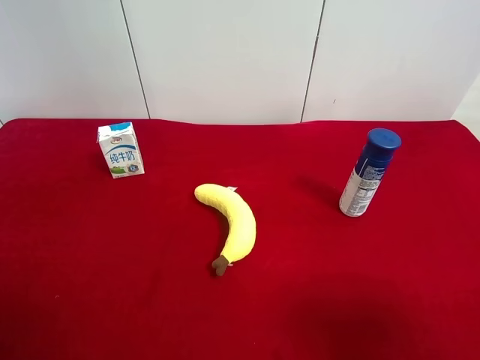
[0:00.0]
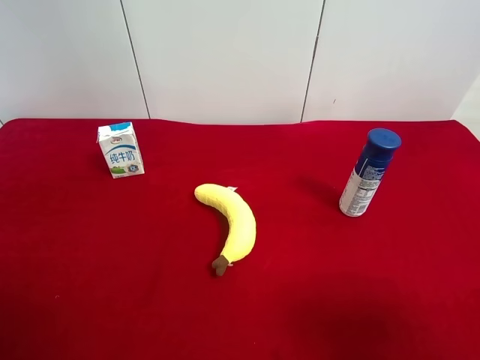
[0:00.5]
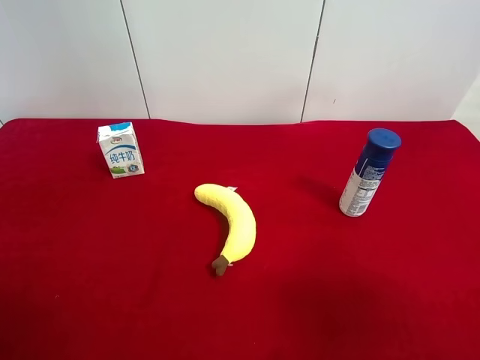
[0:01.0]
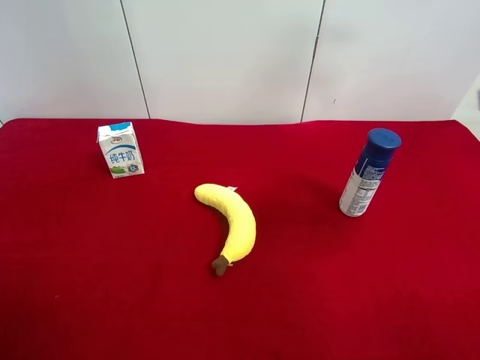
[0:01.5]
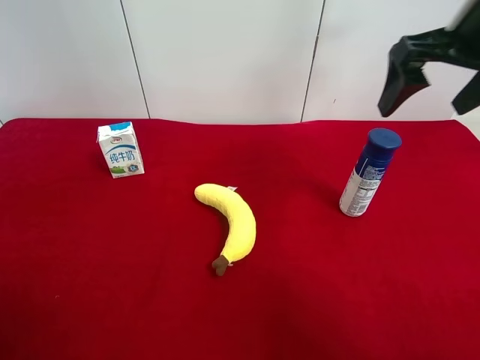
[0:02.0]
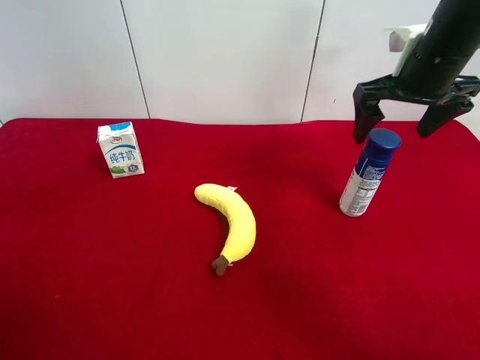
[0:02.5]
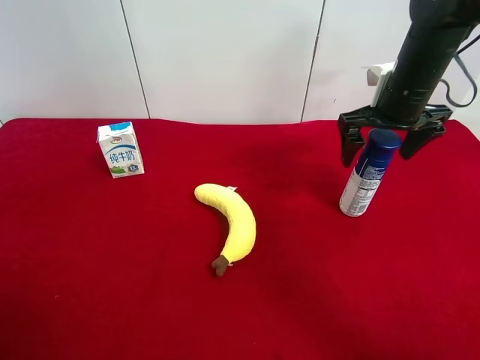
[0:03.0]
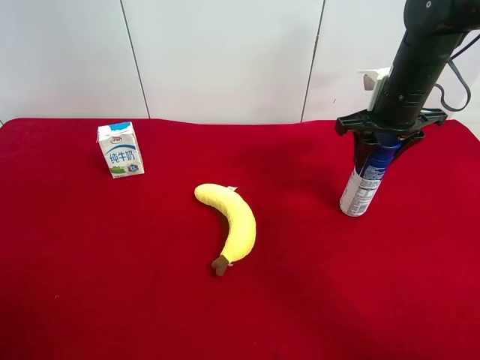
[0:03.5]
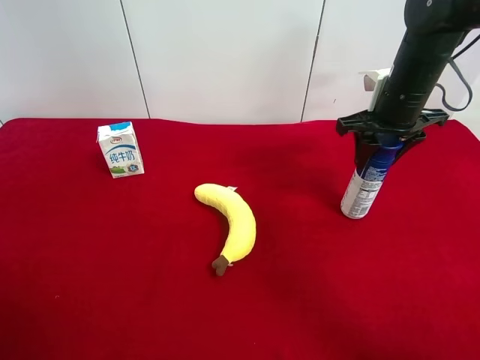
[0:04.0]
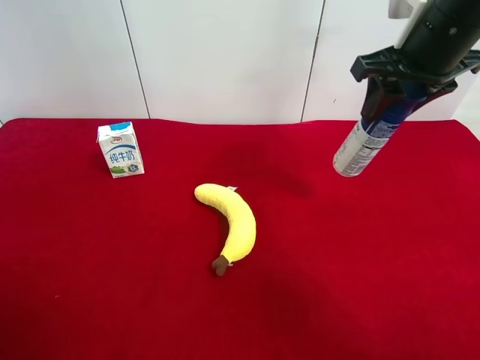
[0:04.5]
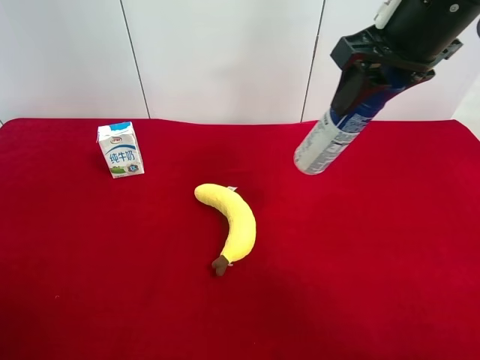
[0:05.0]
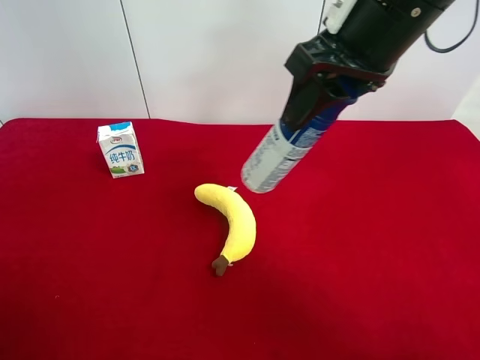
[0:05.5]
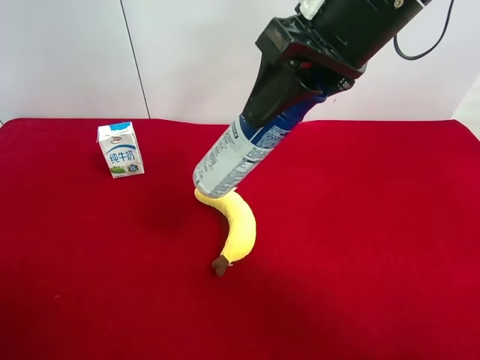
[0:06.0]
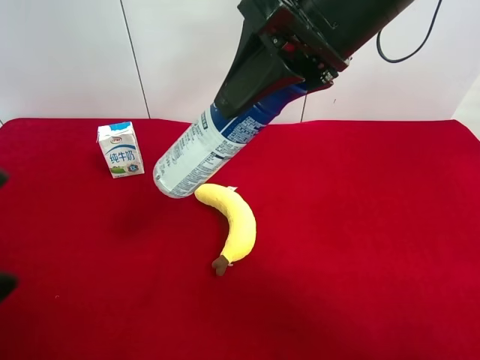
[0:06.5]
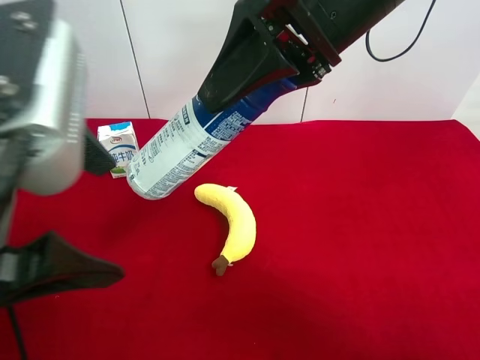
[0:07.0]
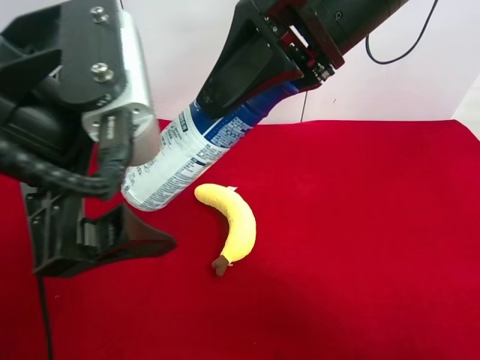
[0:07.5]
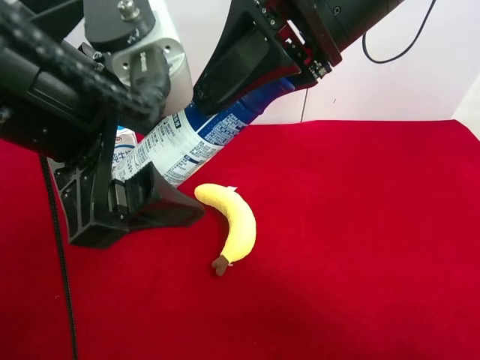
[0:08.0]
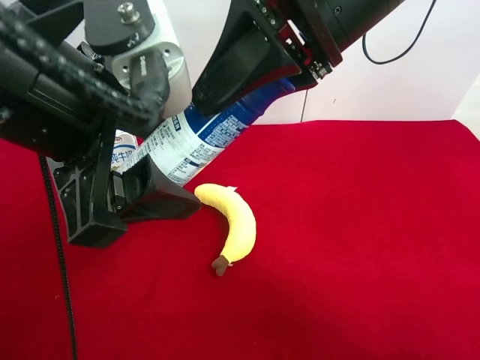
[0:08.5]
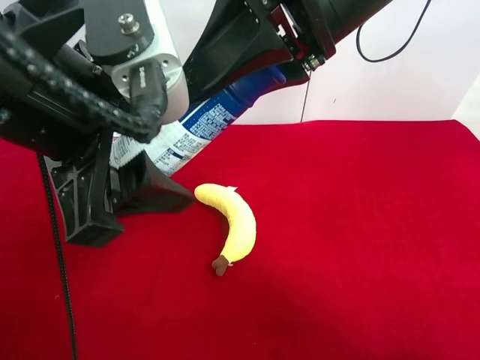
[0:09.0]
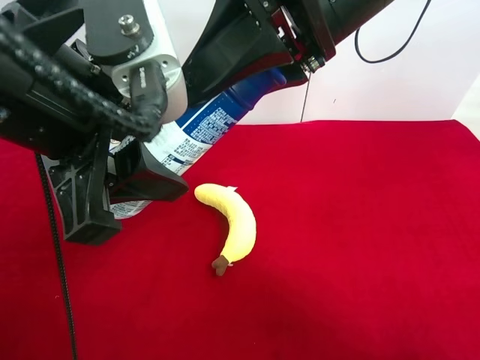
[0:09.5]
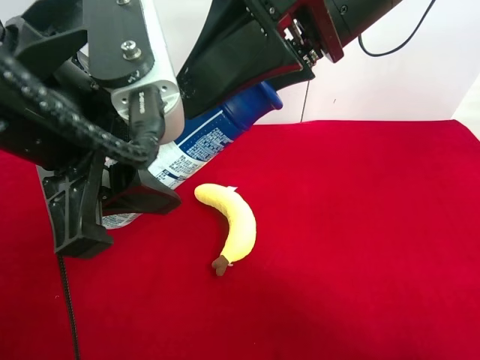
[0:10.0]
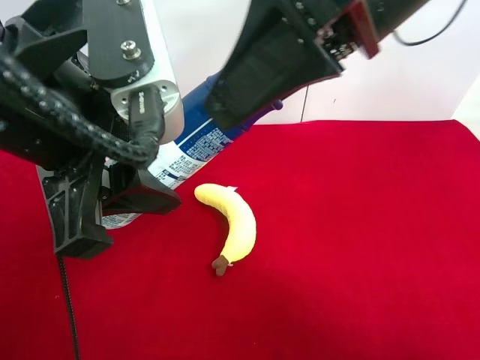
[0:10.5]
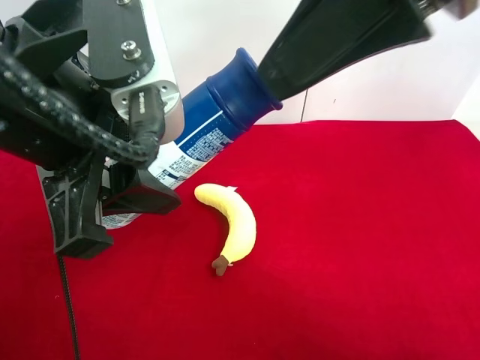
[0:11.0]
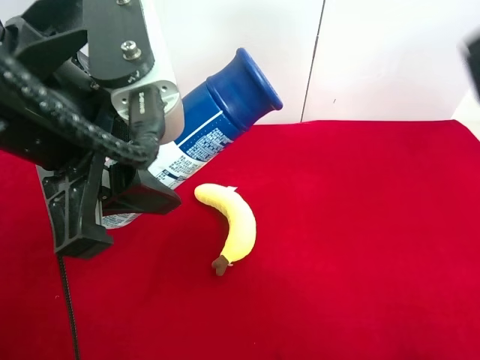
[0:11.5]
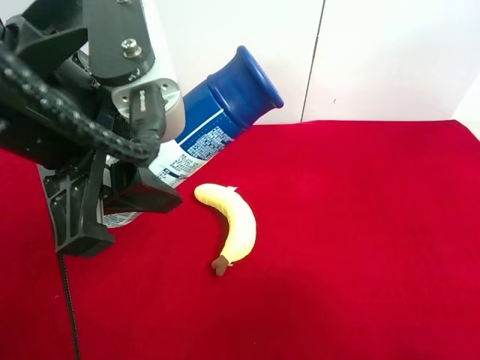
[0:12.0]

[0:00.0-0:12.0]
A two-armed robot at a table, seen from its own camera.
Task of the whole recording: use the right gripper to pick up the item and transfer it from the right gripper to the left gripper.
Step, 0:00.0 to 0:03.5: Use the right gripper to grab the yogurt on the right side of the table.
Step, 0:04.0 to 0:09.5: Pass the to the yogurt left gripper.
0:00.0 to 0:02.0: The right gripper heads forward, covering some 30 cm.
0:02.0 to 0:04.0: The right gripper is displaced downward and forward by about 10 cm, and closes its fingers.
0:04.0 to 0:06.0: The right gripper moves to the left, upward and backward, approximately 20 cm. The left gripper heads forward, covering about 5 cm.
0:06.0 to 0:08.0: The left gripper travels to the right and forward by some 20 cm, and closes up.
0:08.0 to 0:10.0: The left gripper closes its fingers. The right gripper opens.
0:10.0 to 0:12.0: The right gripper is displaced backward and to the right by some 30 cm.

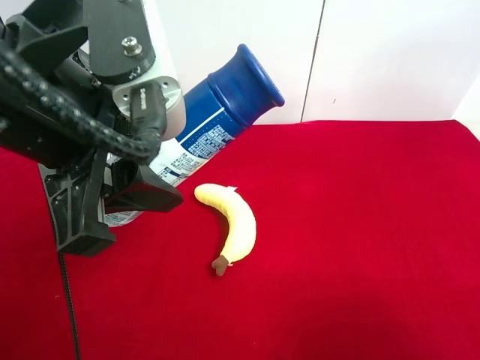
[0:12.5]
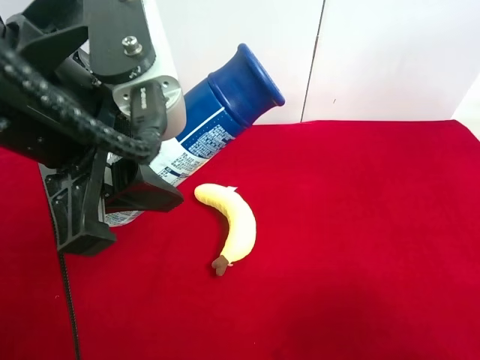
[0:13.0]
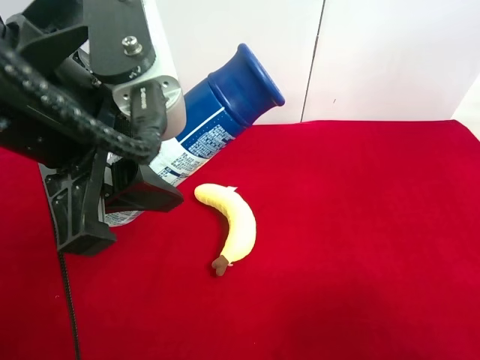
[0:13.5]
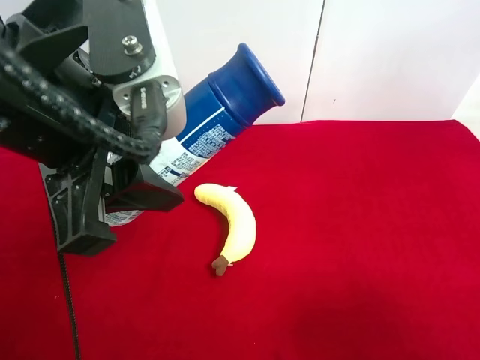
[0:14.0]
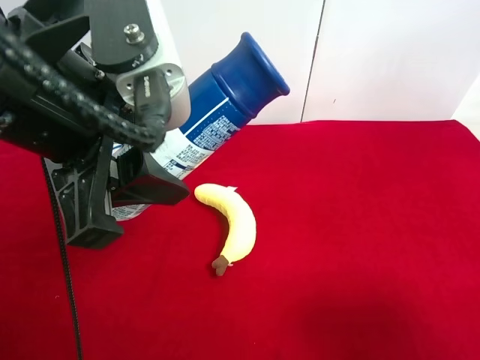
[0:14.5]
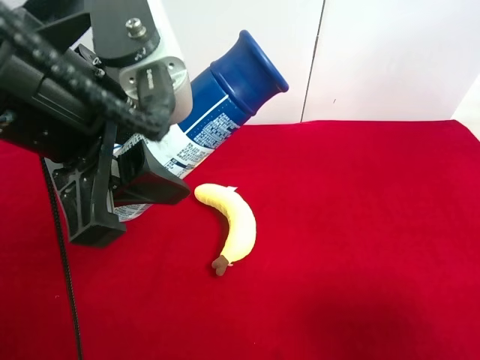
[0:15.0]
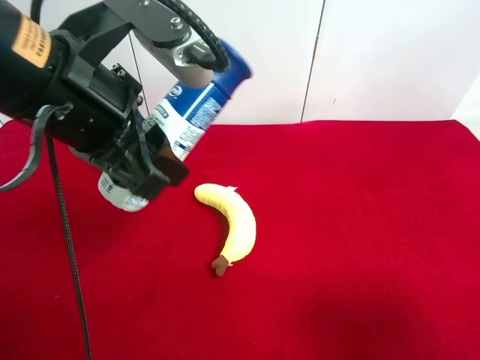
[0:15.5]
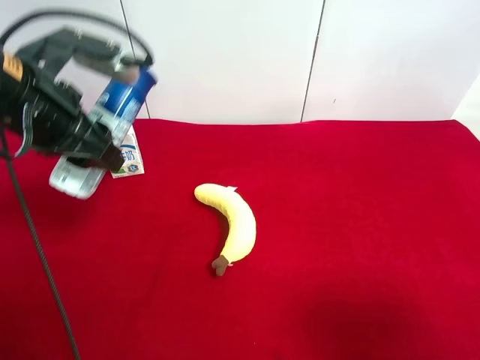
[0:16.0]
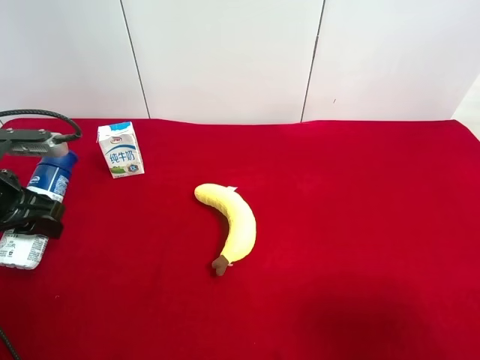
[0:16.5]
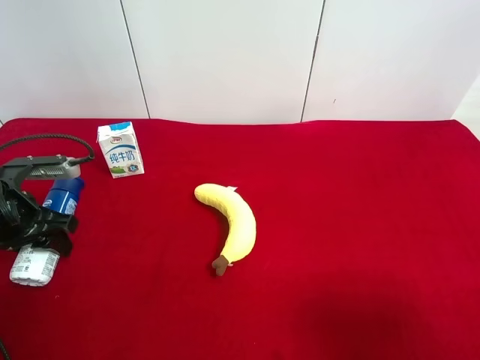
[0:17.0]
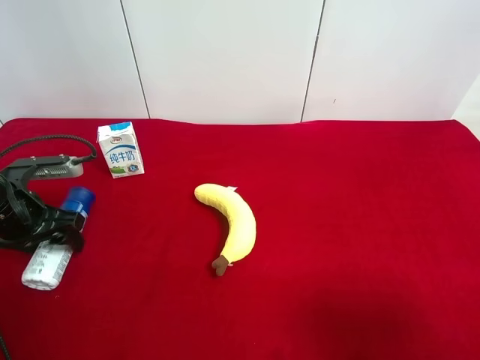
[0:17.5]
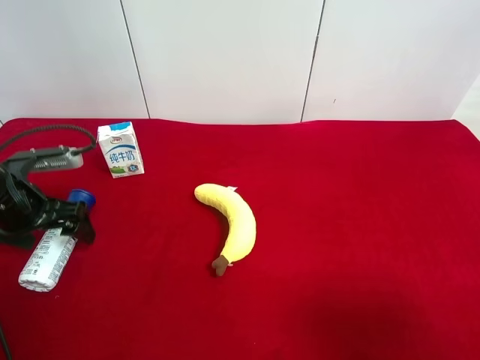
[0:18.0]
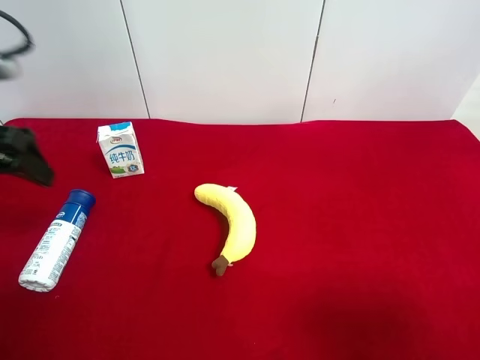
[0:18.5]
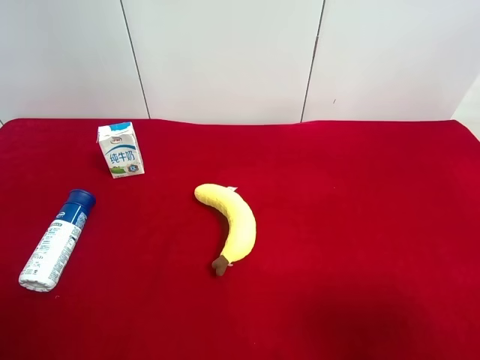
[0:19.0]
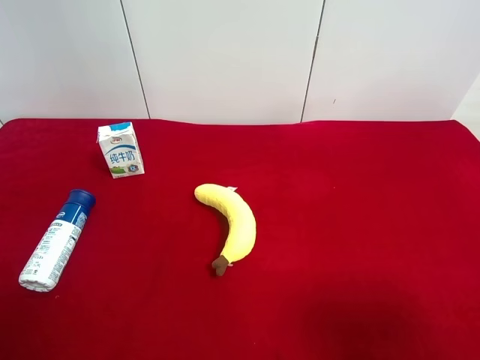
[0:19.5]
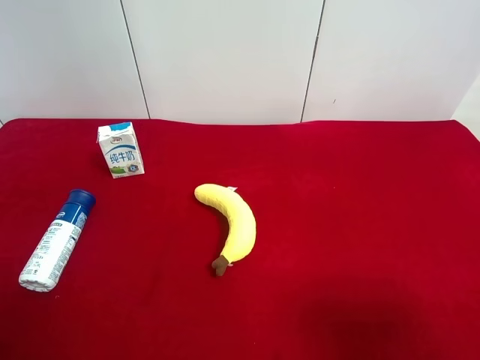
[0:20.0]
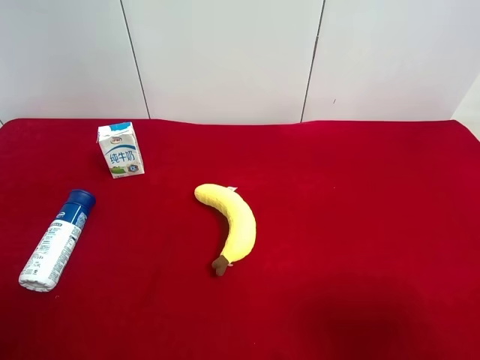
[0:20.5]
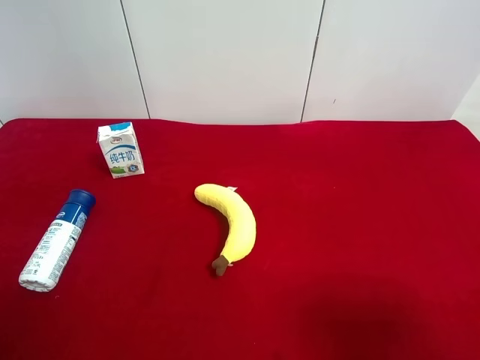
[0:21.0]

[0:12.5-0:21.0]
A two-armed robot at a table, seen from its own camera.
Task of the whole recording: use the right gripper to pick up the item and transfer it from the right gripper to the left gripper.
Step, 0:12.5 to 0:17.5: The left gripper places yogurt on the left side of the table.
0:14.5 to 0:16.5: The left gripper is displaced to the left, downward and forward by approximately 25 cm.
0:16.5 to 0:19.0: The left gripper heads upward and backward, covering approximately 25 cm, and opens its fingers.
